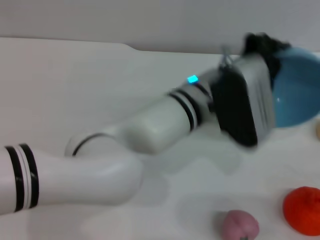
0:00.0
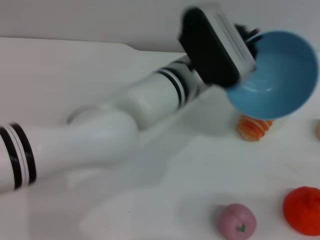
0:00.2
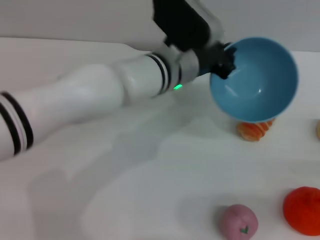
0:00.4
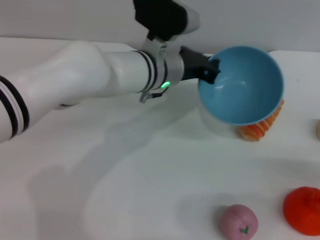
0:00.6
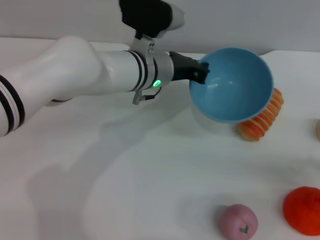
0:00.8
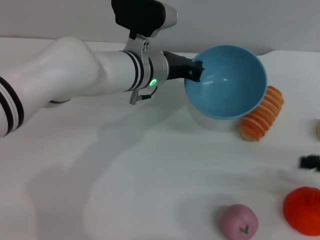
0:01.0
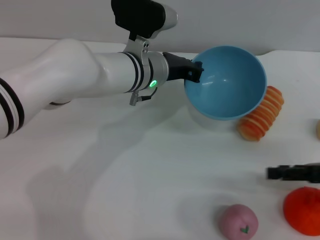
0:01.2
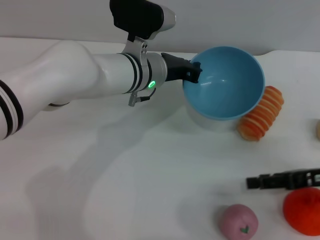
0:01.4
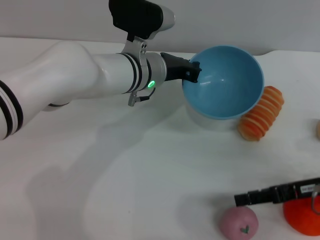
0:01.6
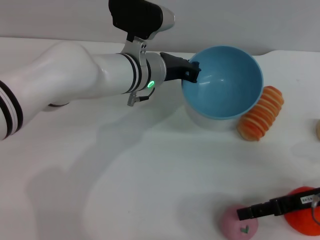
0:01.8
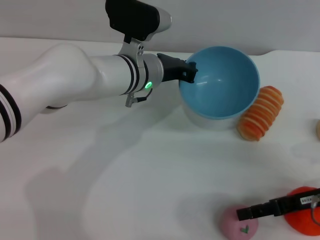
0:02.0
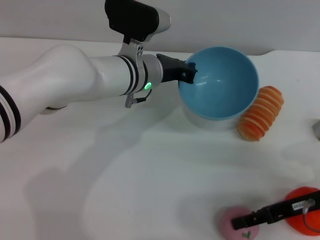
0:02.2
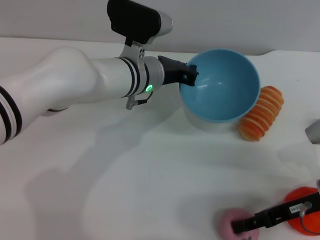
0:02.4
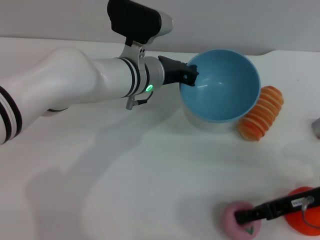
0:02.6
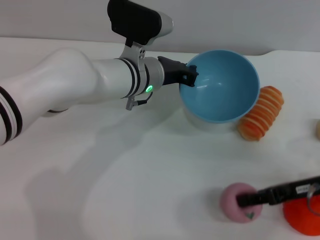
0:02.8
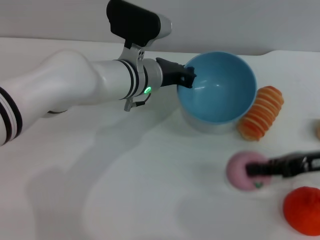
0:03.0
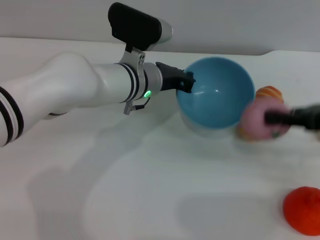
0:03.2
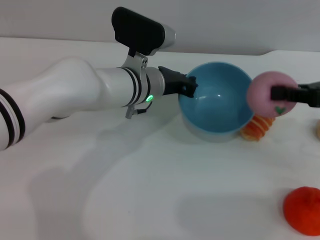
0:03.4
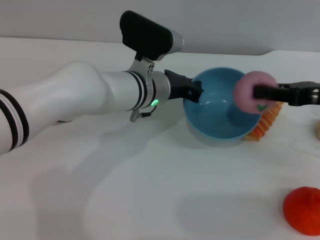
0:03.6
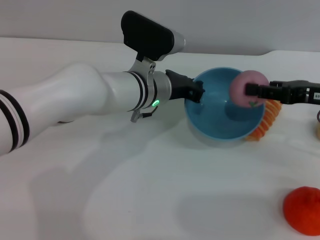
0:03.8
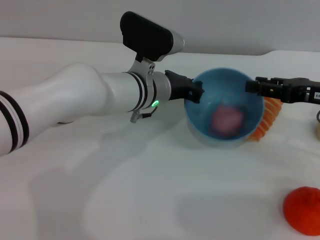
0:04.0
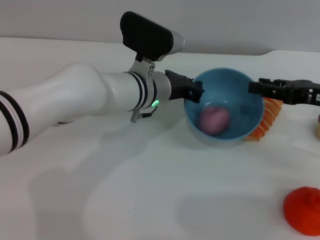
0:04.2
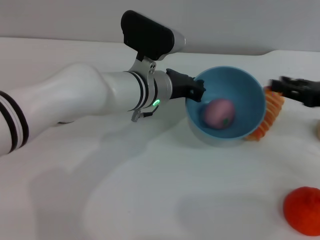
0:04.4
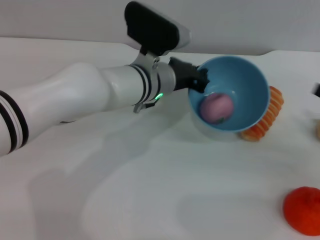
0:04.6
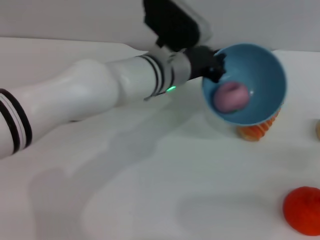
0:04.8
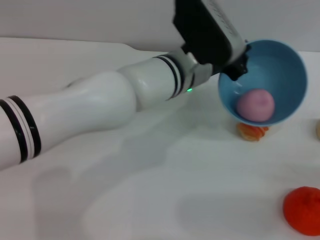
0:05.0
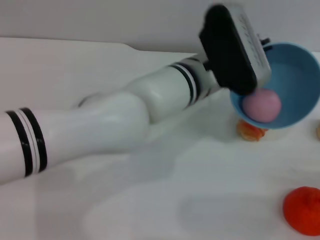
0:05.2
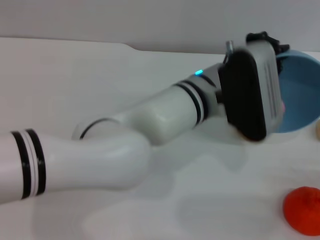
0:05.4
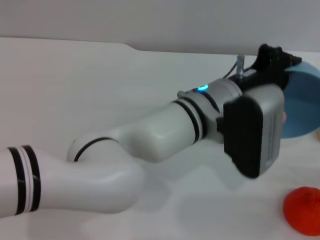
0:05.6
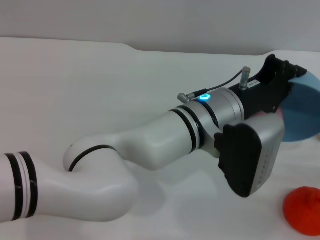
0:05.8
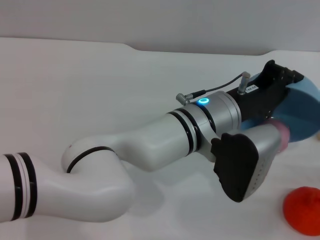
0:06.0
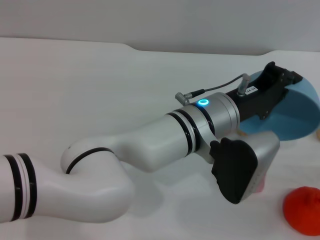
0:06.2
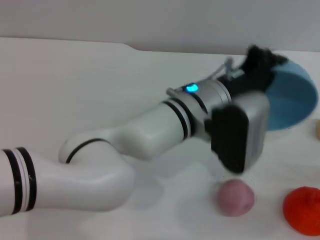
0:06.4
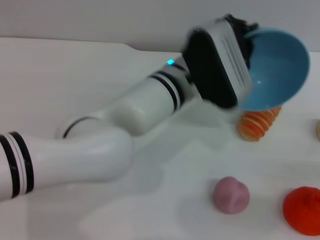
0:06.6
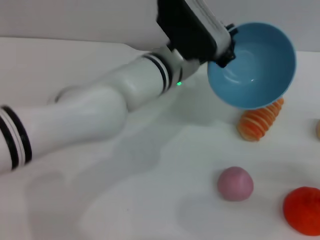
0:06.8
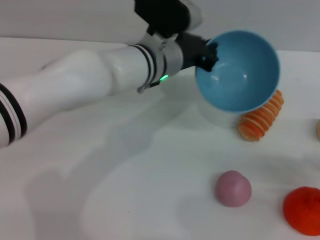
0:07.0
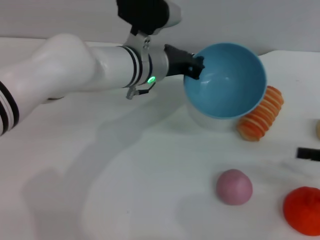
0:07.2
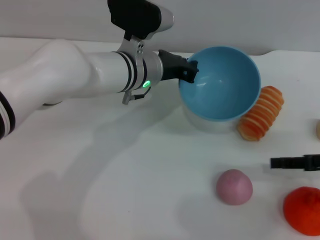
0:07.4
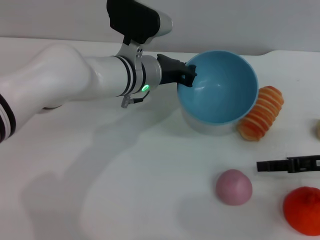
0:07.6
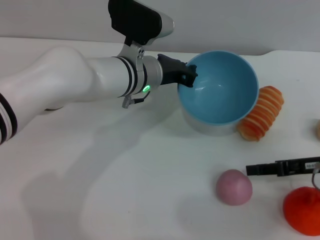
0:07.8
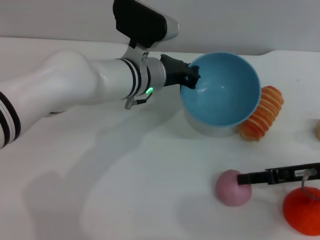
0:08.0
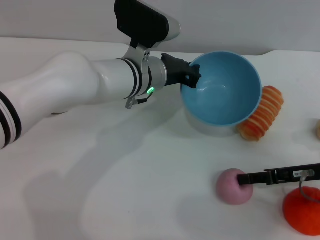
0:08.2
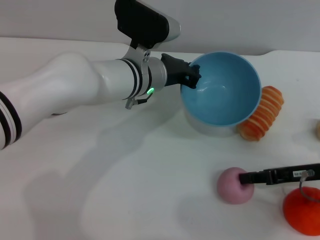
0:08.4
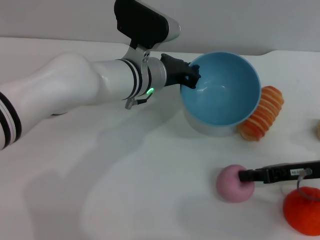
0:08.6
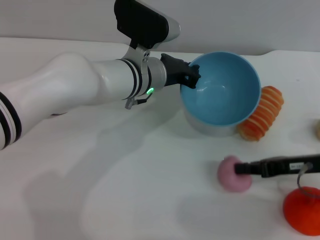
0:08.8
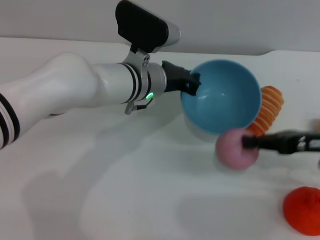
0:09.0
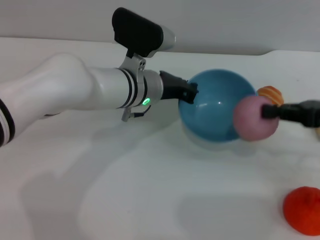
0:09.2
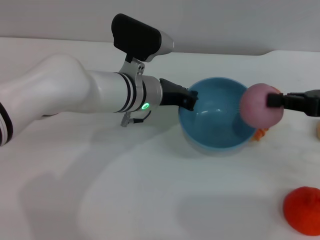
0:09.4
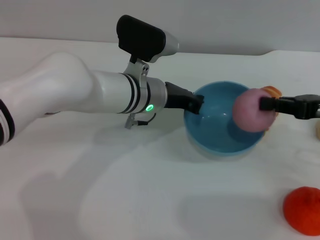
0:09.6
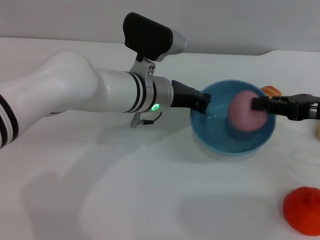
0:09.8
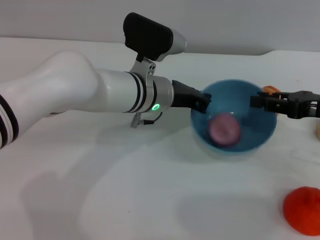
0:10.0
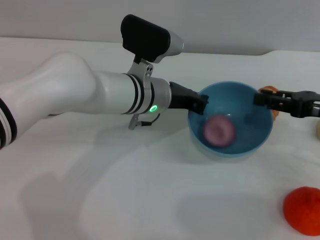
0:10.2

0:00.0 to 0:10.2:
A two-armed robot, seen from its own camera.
Task of the whole recording: put the peach into the blue bowl and pour it out repeatedly.
Step, 0:00.2 to 0:02.8: Pick up the peach with the right gripper.
Step, 0:03.0 to 0:04.2: Place the peach into the bowl.
Step, 0:04.4 to 0:06.6: Pour the peach out of bowl.
Step, 0:06.8 to 0:08.8: Pick up the peach with the right gripper.
Step, 0:09.0 to 0:10.2: Place the peach into the bowl.
0:00.0 to 0:01.4: The right gripper travels forward, to the left and upward by about 15 cm, while the left gripper travels forward and to the left by about 10 cm.
0:01.4 to 0:03.0: The right gripper closes.
0:04.4 to 0:05.8: The right gripper goes some 20 cm backward, downward and to the right, while the left gripper shifts approximately 10 cm backward and to the right.
0:05.8 to 0:07.2: The right gripper goes about 10 cm forward and upward. The left gripper shifts about 15 cm forward and to the left.
0:07.2 to 0:08.8: The right gripper shifts approximately 10 cm to the left, and closes.
0:08.8 to 0:10.2: The right gripper moves upward, about 5 cm.

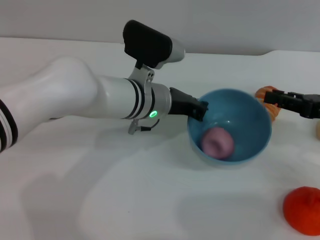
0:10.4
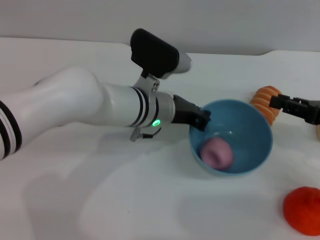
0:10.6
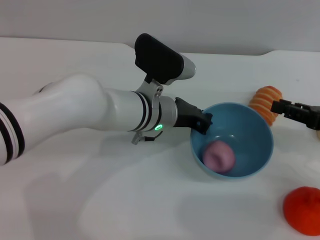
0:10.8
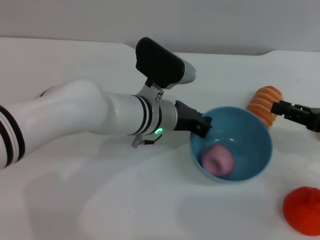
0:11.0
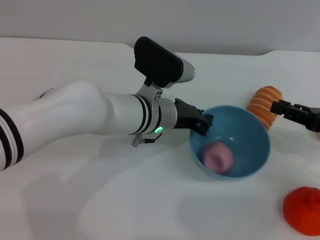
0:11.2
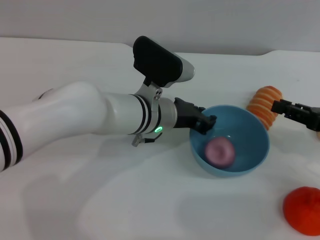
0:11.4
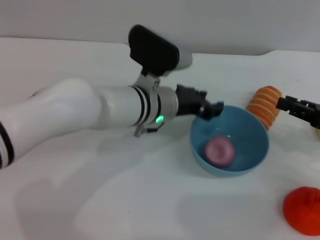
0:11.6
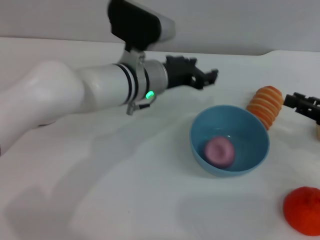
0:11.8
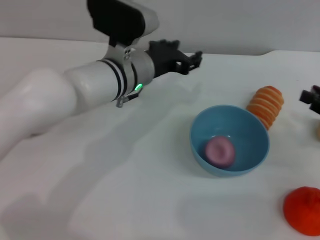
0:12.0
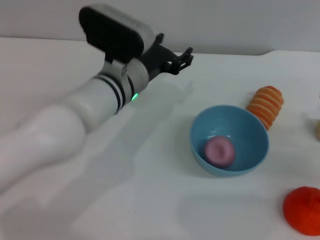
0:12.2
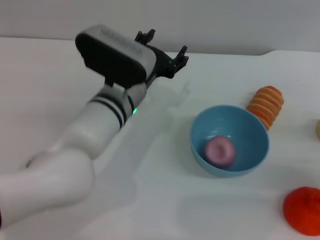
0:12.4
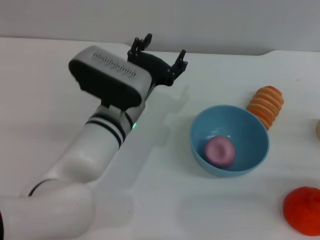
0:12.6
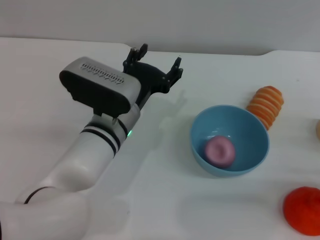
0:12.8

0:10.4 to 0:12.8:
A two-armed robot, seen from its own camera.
Task of the whole recording: put the peach into the blue bowl and pour it out repeatedly.
Step, 0:10.4 to 0:11.6: Place the bowl on the table.
0:10.4 to 0:11.6: The left gripper opens up.
0:11.6 to 0:12.8: The right gripper is displaced downward and backward by some 10 cm; the left gripper shifts by approximately 5 cm, and opens its fingers.

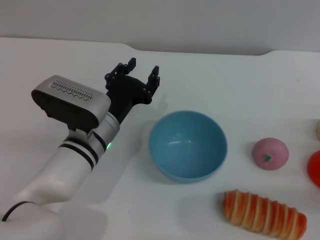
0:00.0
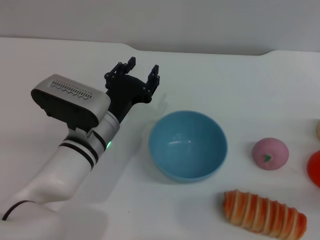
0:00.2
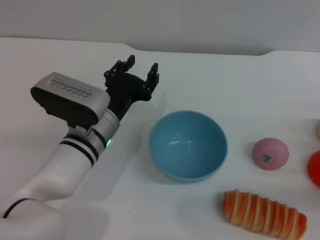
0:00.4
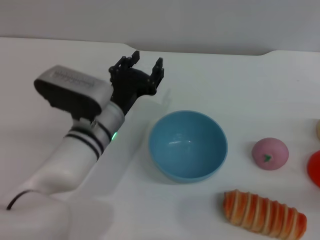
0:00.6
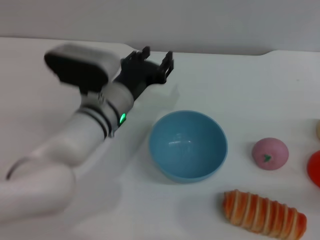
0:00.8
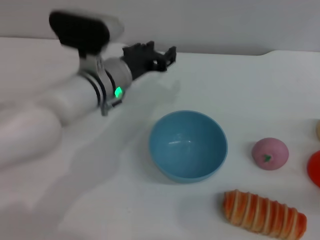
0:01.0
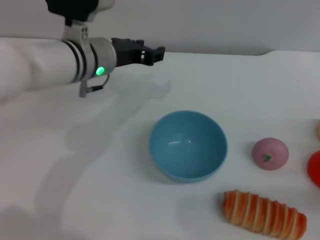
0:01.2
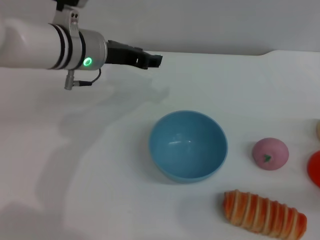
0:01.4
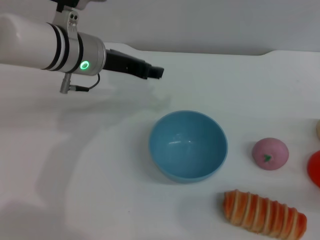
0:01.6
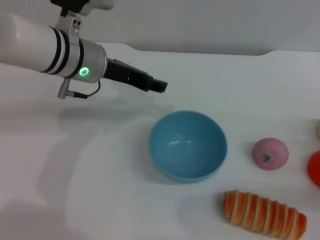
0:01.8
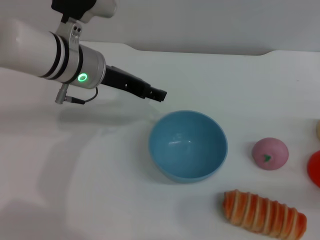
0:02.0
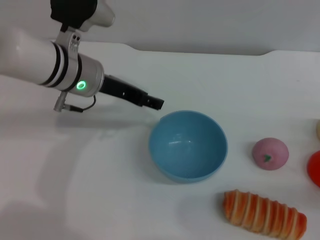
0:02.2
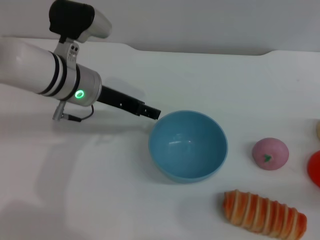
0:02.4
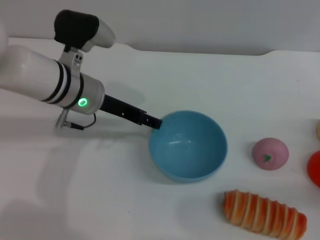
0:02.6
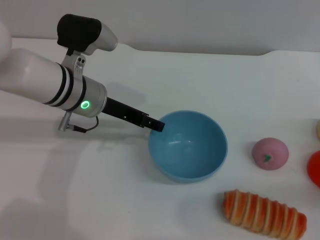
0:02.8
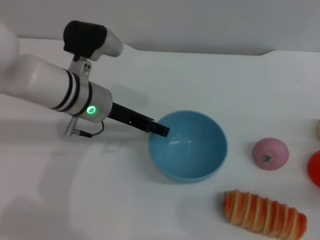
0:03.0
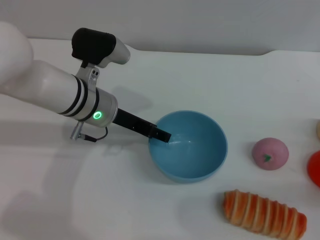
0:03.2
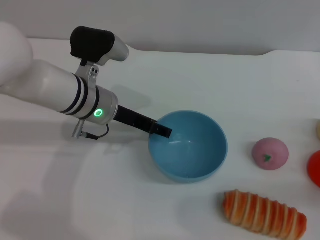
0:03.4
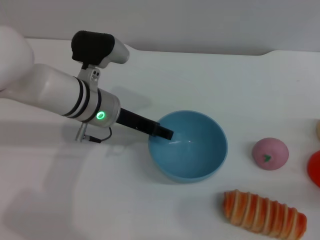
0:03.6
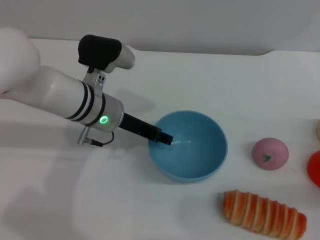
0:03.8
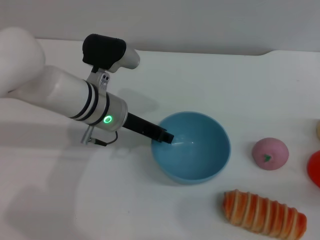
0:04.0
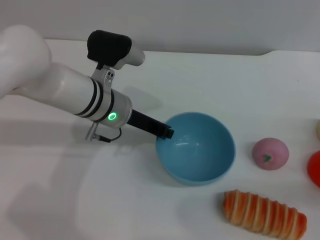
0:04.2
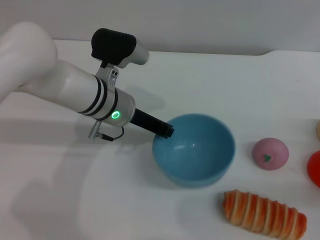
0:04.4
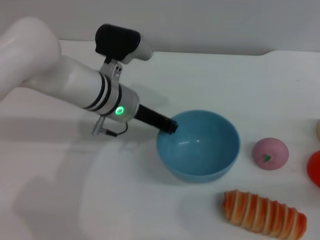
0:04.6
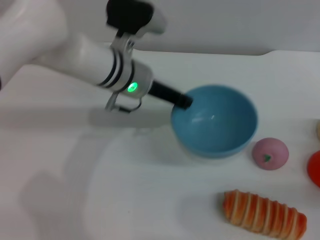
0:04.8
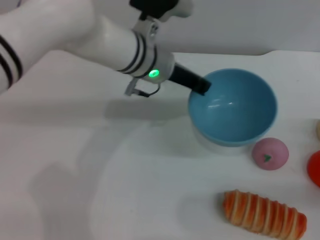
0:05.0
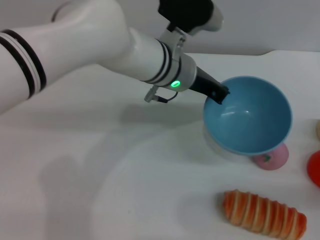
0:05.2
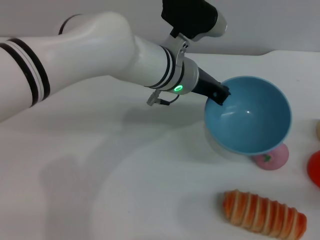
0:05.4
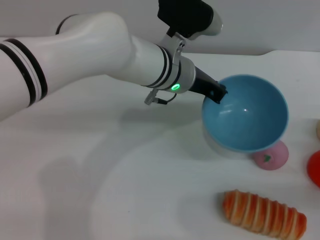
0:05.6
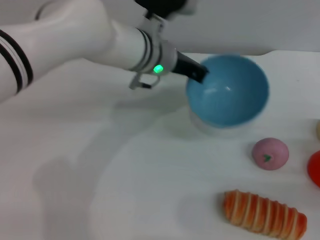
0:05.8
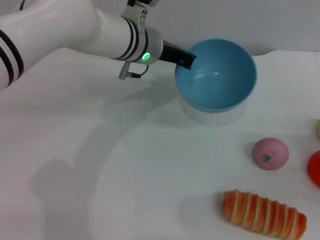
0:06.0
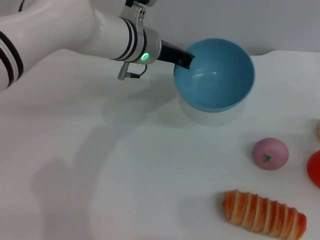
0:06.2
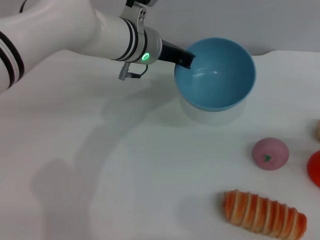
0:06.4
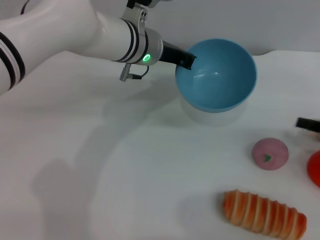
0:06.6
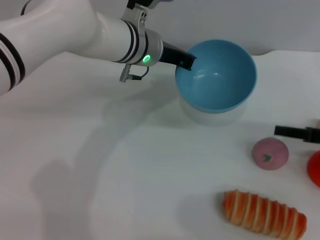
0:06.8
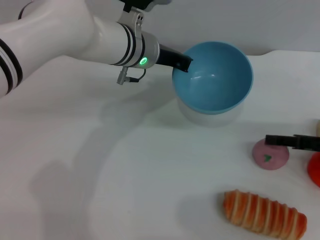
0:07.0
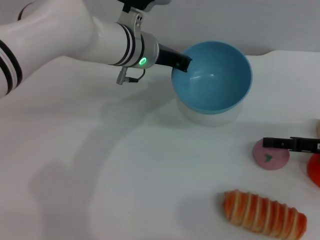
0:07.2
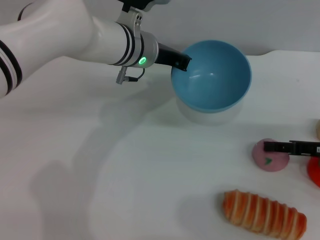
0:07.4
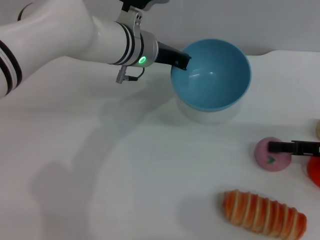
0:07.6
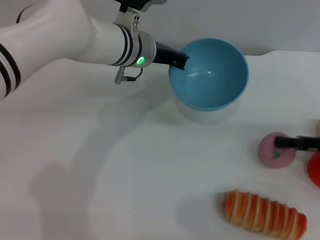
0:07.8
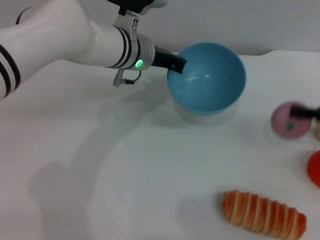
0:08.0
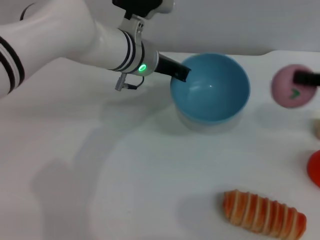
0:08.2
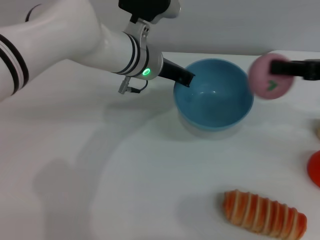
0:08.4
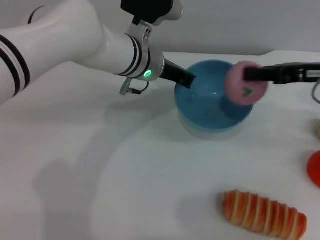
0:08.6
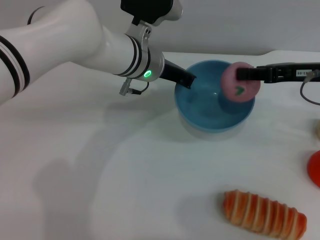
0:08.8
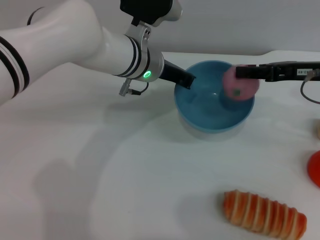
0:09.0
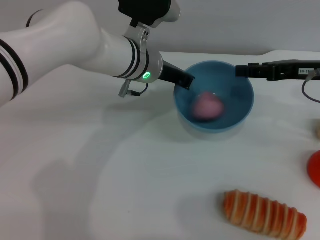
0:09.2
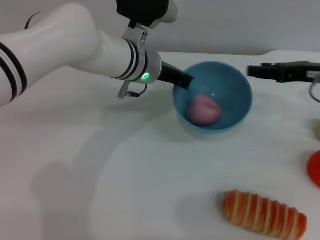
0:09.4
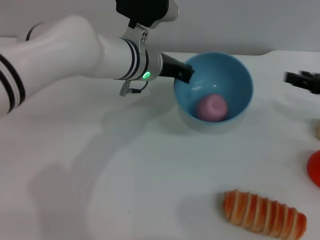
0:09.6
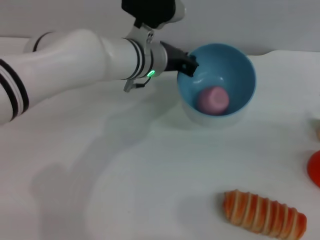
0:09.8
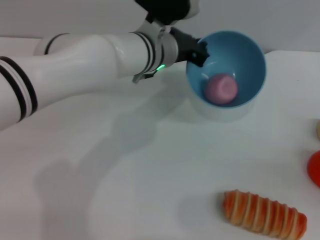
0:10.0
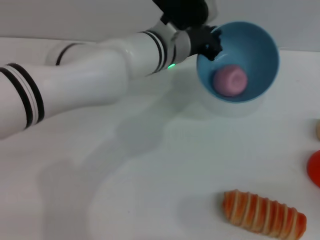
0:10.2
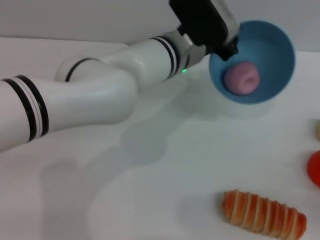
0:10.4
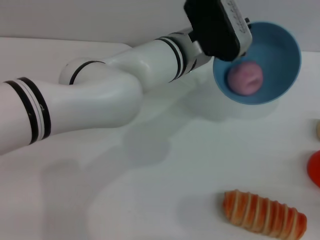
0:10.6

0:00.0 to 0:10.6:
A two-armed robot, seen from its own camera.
Task of the whole recording: put the peach into the blue bowl and pour it out repeatedly.
Step, 0:00.0 to 0:04.8: Pick up the bowl with the left gripper.
Step, 0:05.0 to 0:08.0: Pick up the peach with the right gripper.
Step, 0:08.4 to 0:09.8: Place the peach into the bowl.
0:00.0 to 0:01.6: The left gripper moves upward and forward, approximately 15 cm.
0:01.6 to 0:03.0: The left gripper travels downward by about 5 cm.
0:03.0 to 0:04.6: The left gripper closes up.
0:04.6 to 0:06.0: The left gripper travels forward by some 5 cm.
0:06.0 to 0:07.6: The right gripper travels forward and to the left by roughly 10 cm.
0:07.6 to 0:09.0: The right gripper travels upward, forward and to the left by approximately 15 cm, and closes up.
0:09.0 to 0:10.6: The left gripper heads to the right, covering approximately 5 cm. The right gripper travels backward, downward and to the right by approximately 25 cm, and opens up.
